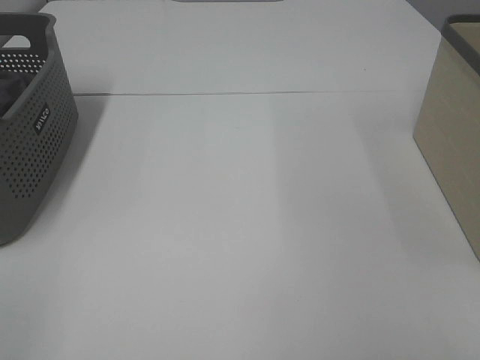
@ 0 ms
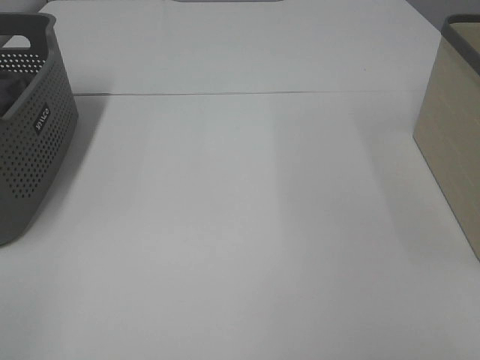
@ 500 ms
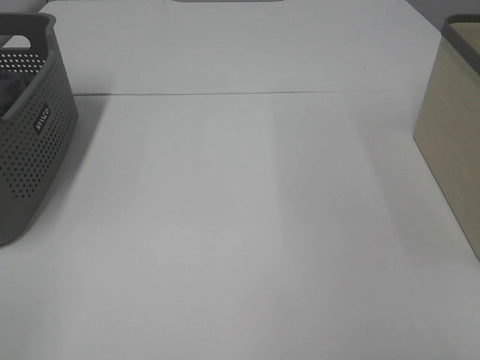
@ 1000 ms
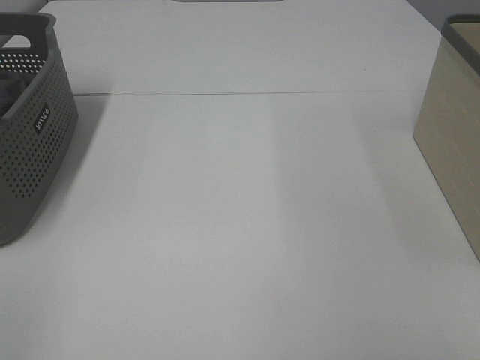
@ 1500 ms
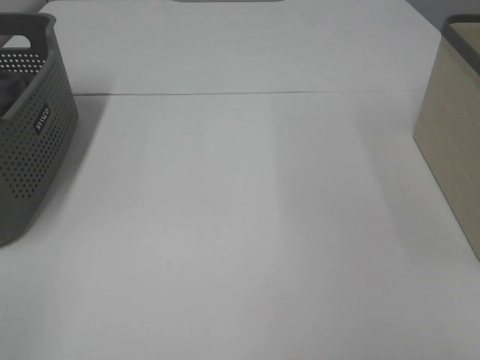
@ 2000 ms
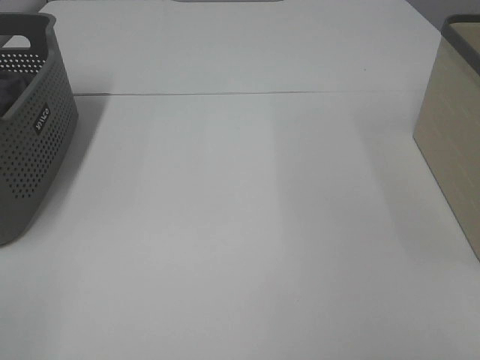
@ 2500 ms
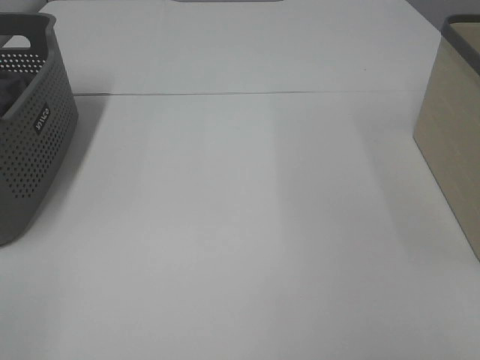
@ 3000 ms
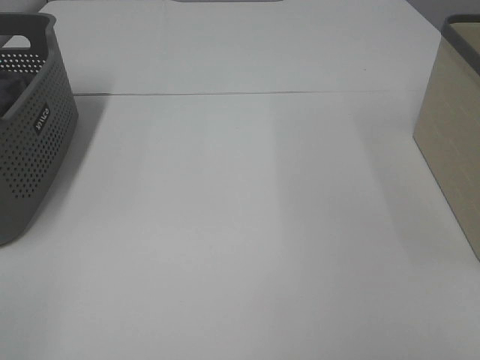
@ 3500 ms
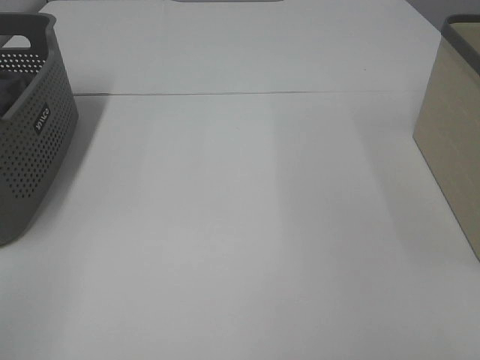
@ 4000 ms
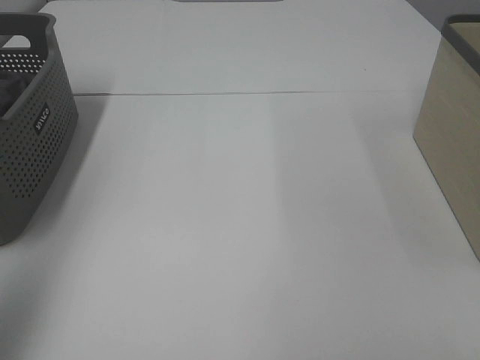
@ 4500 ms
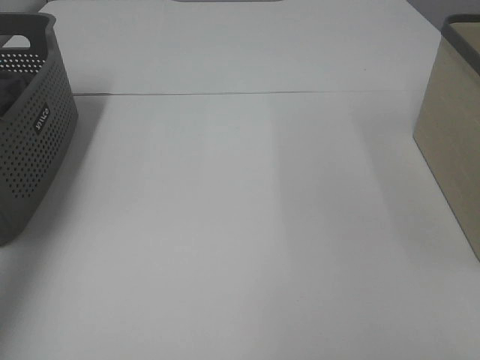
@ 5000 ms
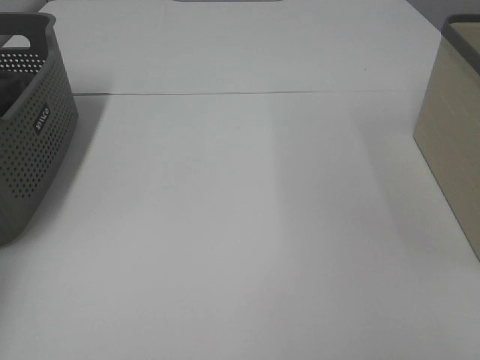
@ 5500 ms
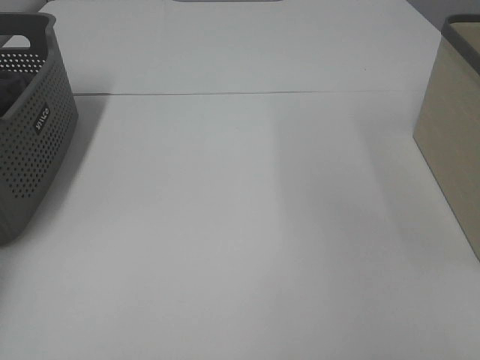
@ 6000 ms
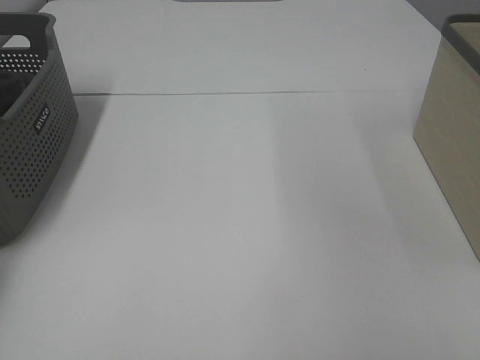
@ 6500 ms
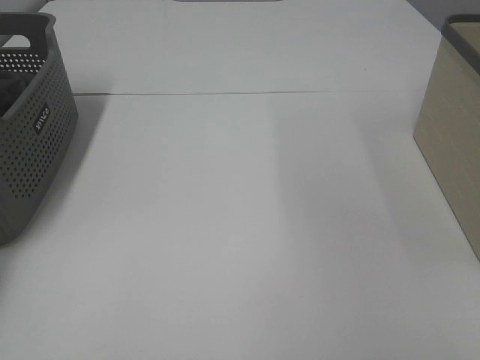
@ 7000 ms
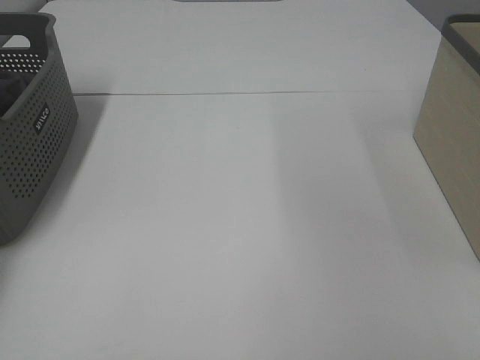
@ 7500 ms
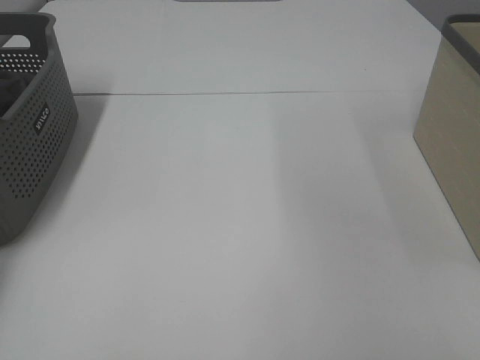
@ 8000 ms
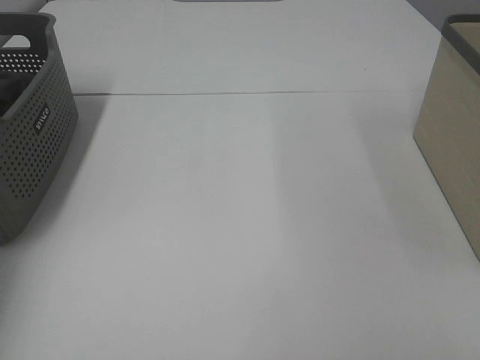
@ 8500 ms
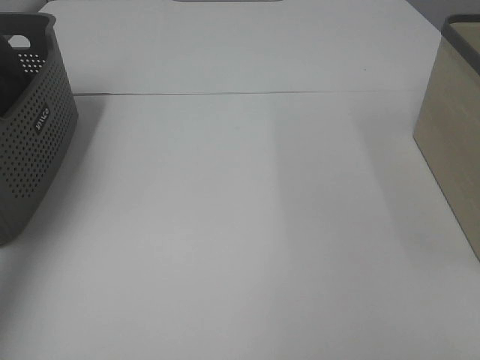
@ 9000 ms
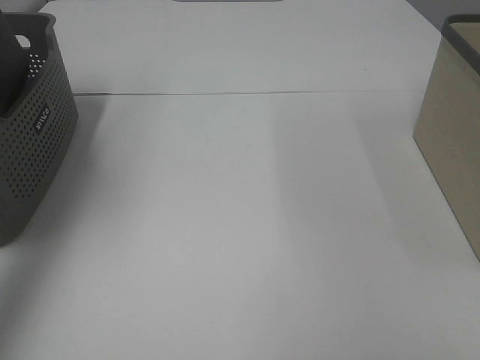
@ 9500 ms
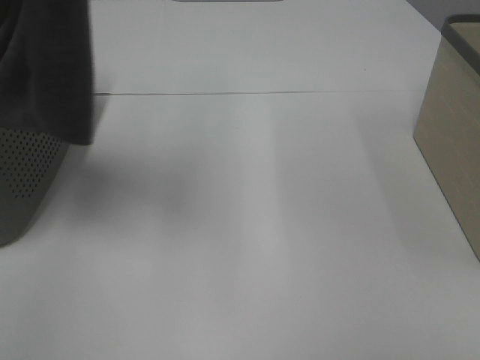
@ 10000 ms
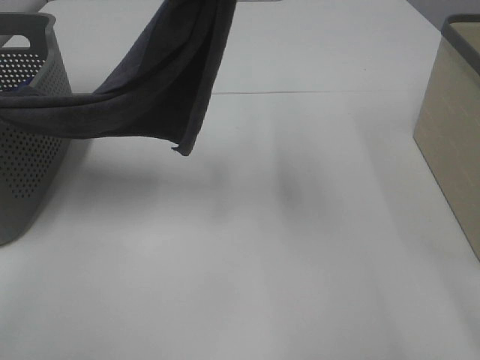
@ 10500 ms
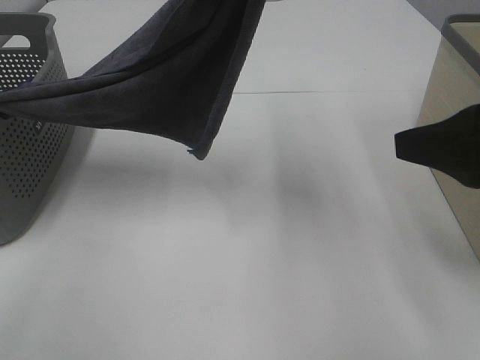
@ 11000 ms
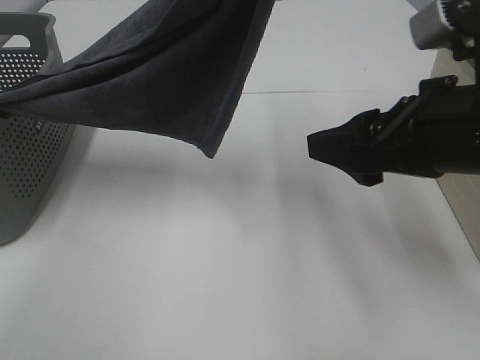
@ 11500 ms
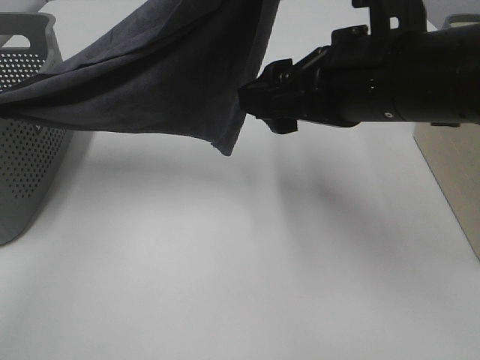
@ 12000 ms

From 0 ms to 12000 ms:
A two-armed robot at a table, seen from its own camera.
Task of the whole recording: Remove the towel and place it.
From 0 ms to 2000 ms: Both grippers stay put.
From 8000 ms to 10000 ms: The left gripper heads upward, to the right and backward, covering some 50 cm.
From 10000 ms to 12000 ms: The right gripper heads forward and to the left, covering approximately 25 cm; the left gripper moves to the right and downward, some 20 cm.

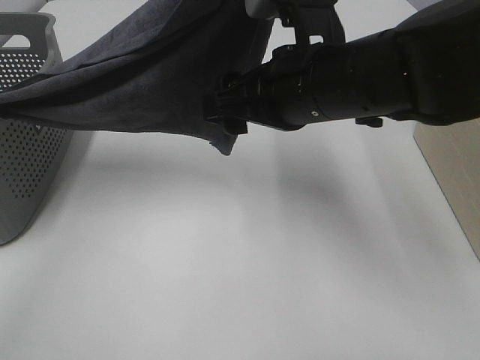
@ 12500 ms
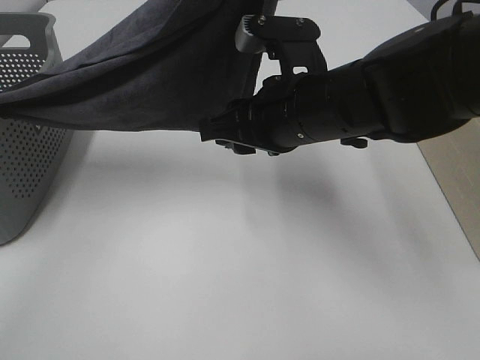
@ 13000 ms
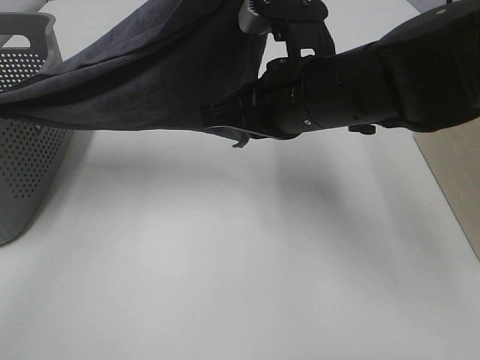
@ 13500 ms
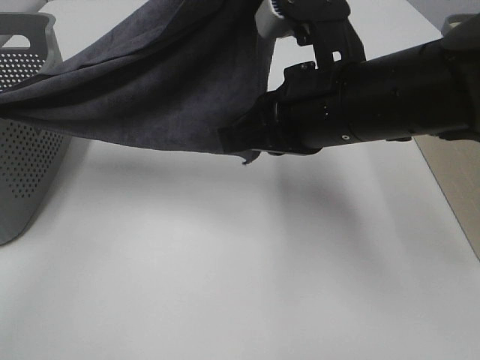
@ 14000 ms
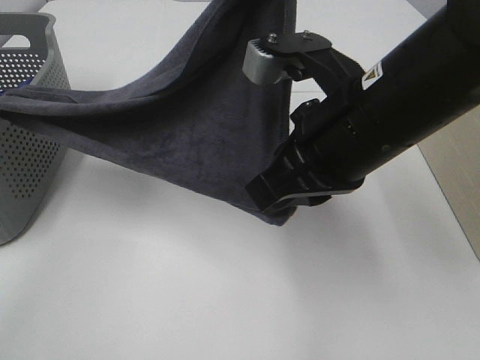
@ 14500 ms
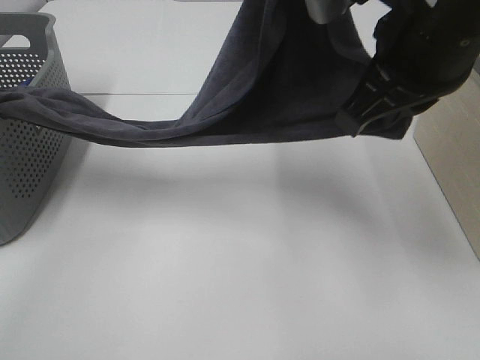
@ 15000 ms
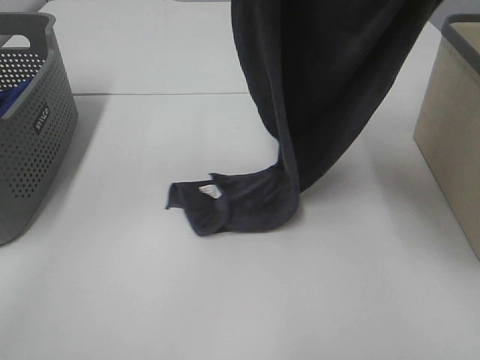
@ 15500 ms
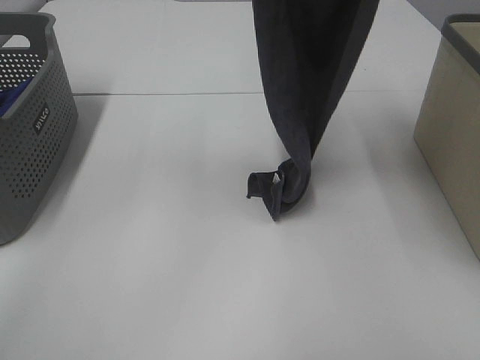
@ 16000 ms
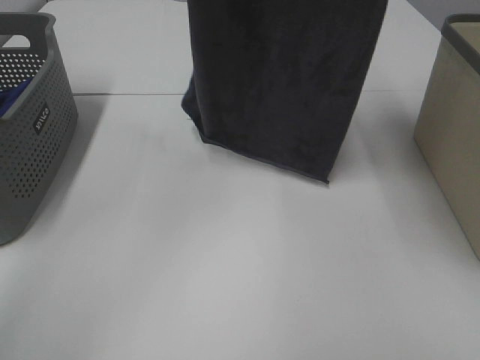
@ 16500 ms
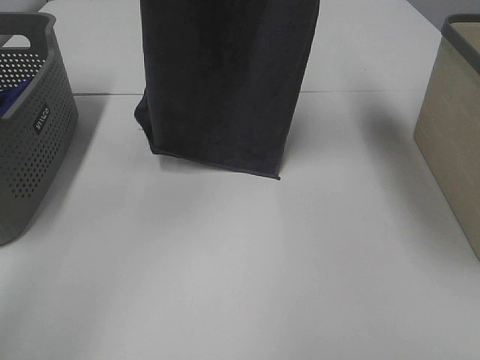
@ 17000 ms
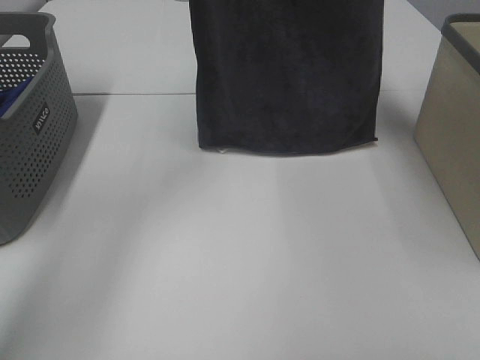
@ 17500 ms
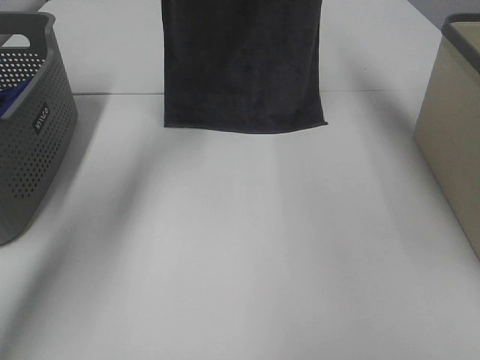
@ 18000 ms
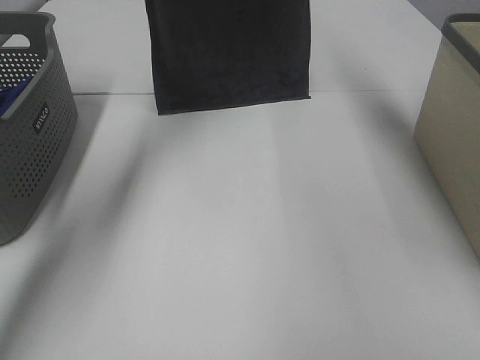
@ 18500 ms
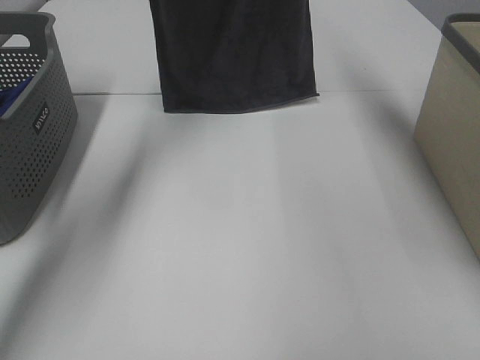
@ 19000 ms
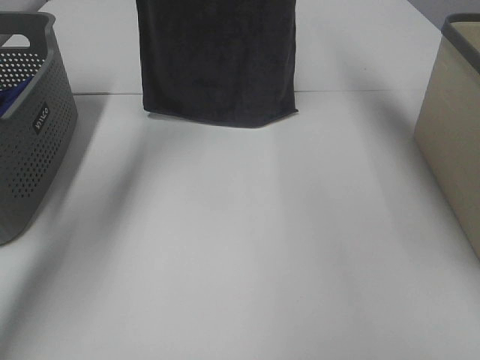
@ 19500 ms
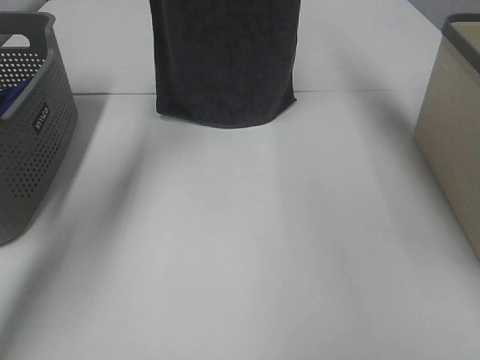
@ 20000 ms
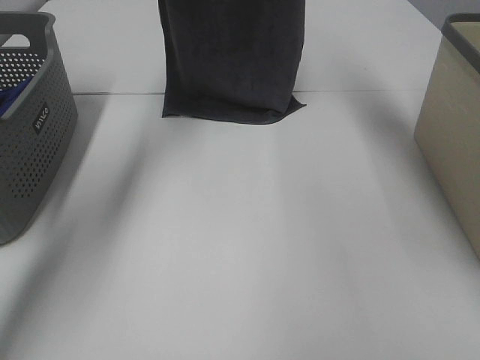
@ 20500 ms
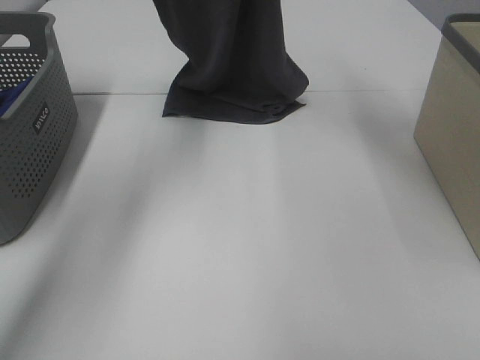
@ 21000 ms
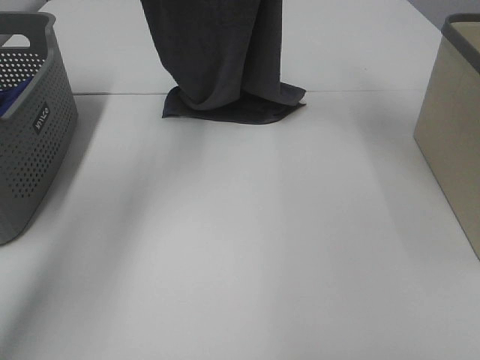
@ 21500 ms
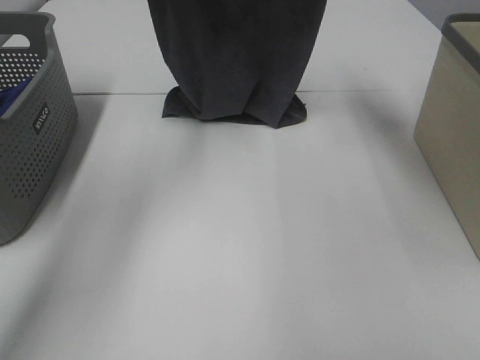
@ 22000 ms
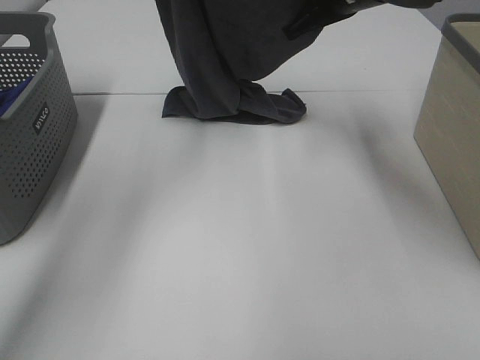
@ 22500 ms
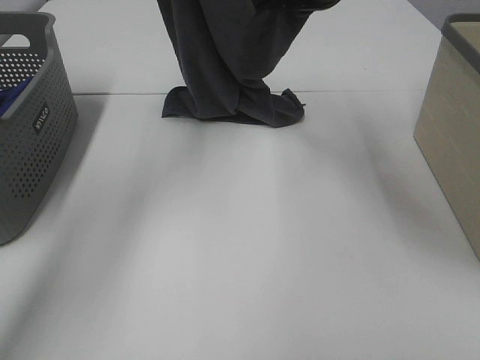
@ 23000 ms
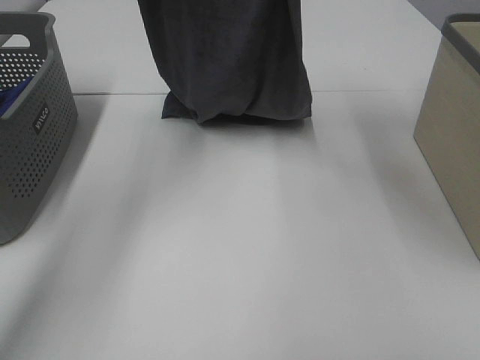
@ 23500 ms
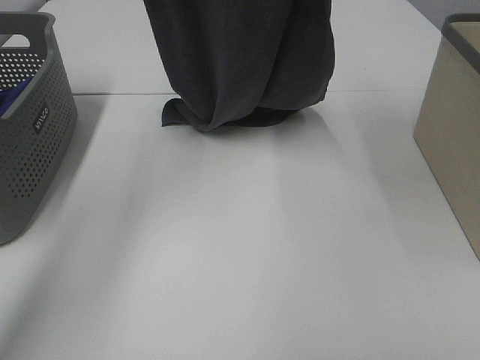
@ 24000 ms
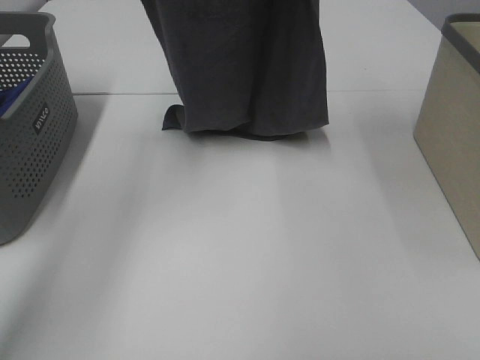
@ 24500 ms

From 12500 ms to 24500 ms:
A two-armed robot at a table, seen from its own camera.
Task of the whole recording: Remove the towel and place it.
Step, from 12500 ms to 16000 ms: Right hand: grab a corner of the grey towel and straighten it.
From 12500 ms to 14500 ms: The right gripper travels backward by about 5 cm, and closes its fingers.
From 14500 ms to 16500 ms: The right gripper travels upward by about 25 cm. Meanwhile the left gripper is displaced to the left, upward and forward by roughly 15 cm.
From 16500 ms to 18500 ms: The right gripper shifts about 20 cm forward; the left gripper heads forward and downward, covering roughly 20 cm.
From 18500 ms to 20500 ms: There are only small adjustments of the grippers.
From 20500 ms to 22500 ms: The right gripper heads downward and backward, covering approximately 15 cm. Meanwhile the left gripper is displaced backward by roughly 5 cm.
From 22500 ms to 24500 ms: The right gripper goes some 20 cm upward. The left gripper goes roughly 5 cm upward.

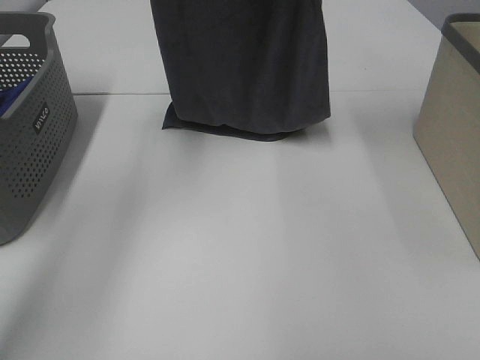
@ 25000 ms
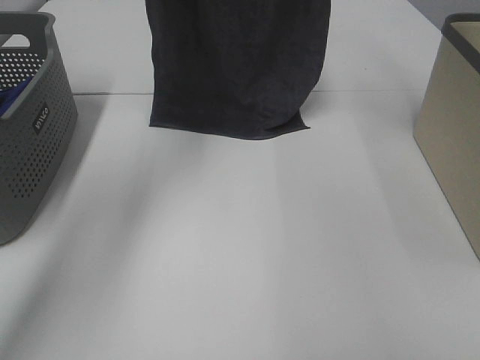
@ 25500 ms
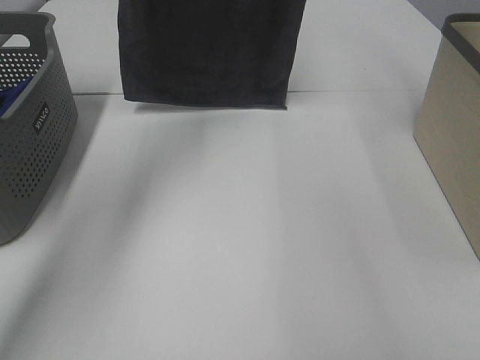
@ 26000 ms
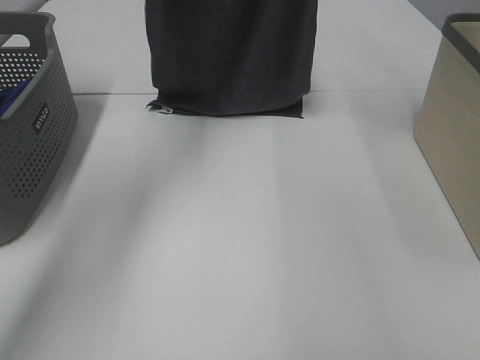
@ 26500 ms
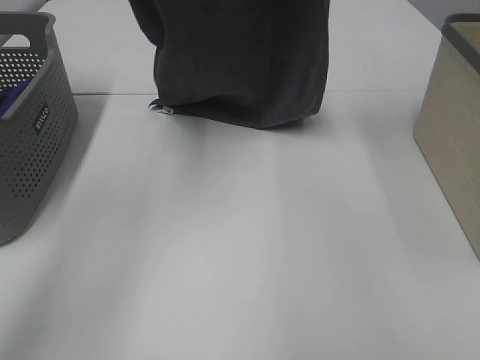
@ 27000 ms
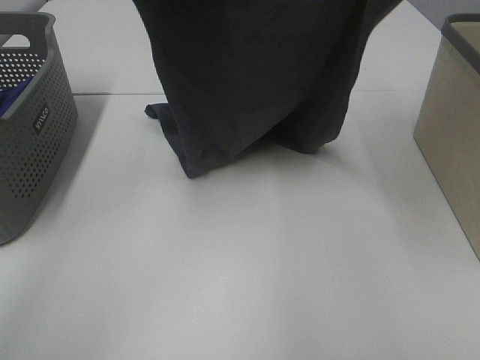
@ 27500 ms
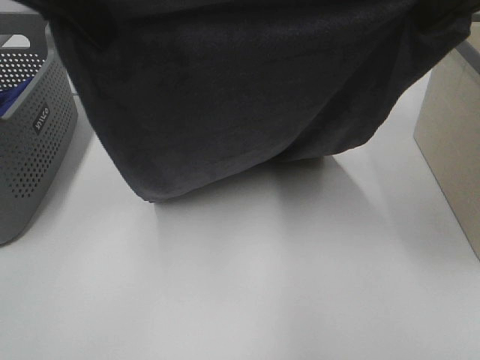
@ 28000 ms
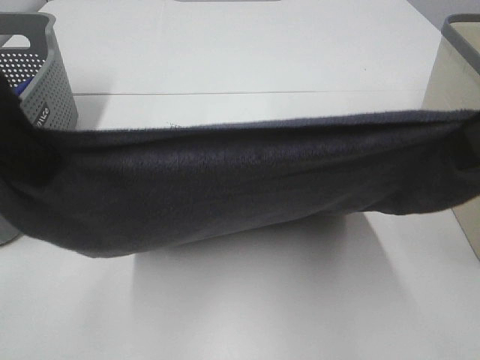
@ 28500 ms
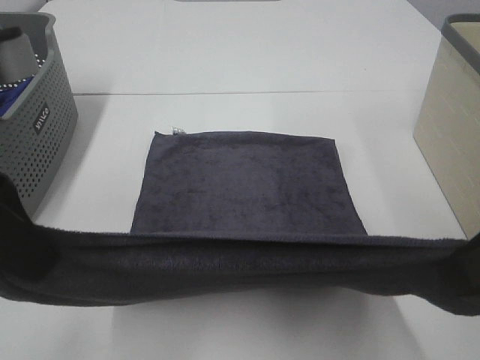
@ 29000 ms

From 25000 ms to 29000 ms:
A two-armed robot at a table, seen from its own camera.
Task of the whole recording: Remove the towel and place it.
From 25000 ms to 27000 ms: The left gripper reaches roughly 5 cm forward, then returns.
From 27000 ms to 29000 ms: Both grippers travel together backward and downward, some 35 cm.
